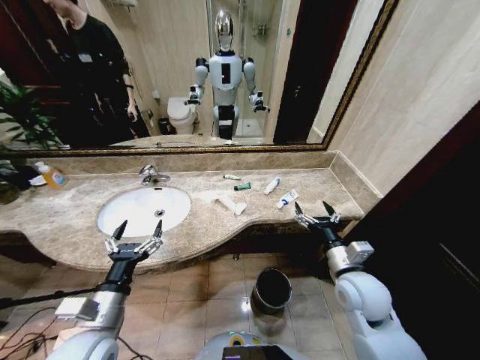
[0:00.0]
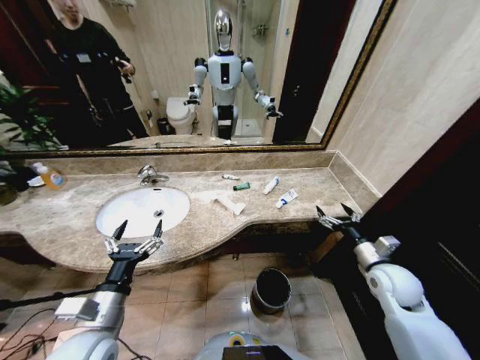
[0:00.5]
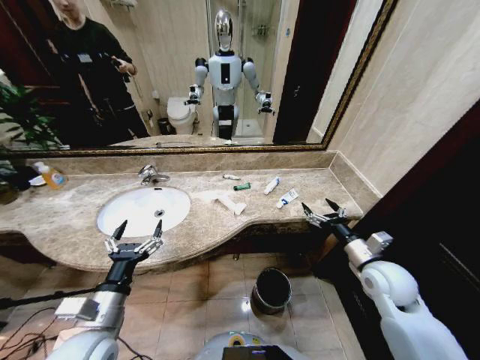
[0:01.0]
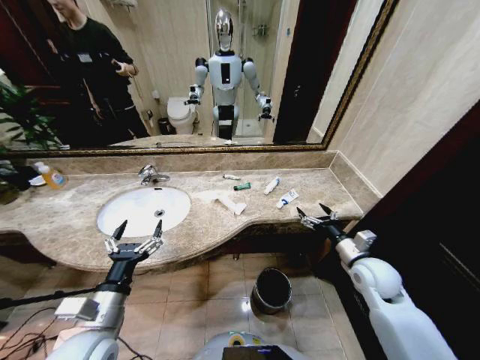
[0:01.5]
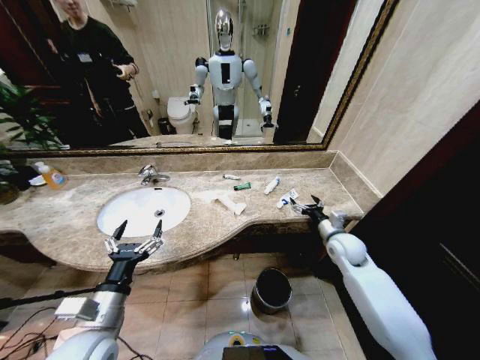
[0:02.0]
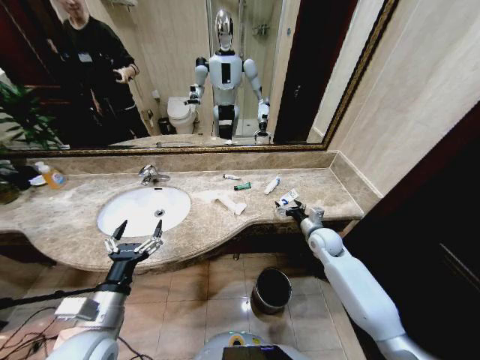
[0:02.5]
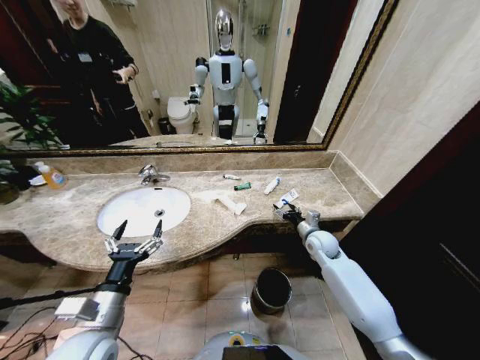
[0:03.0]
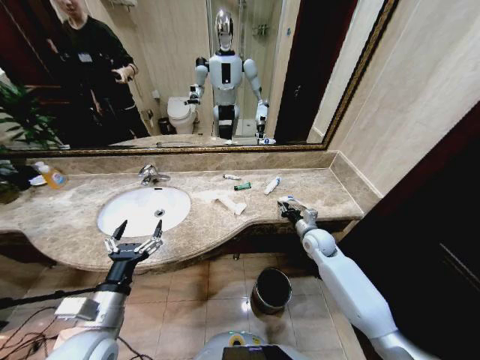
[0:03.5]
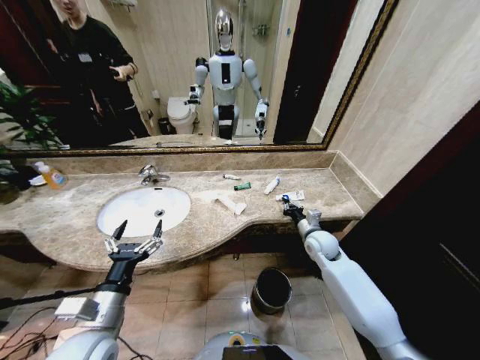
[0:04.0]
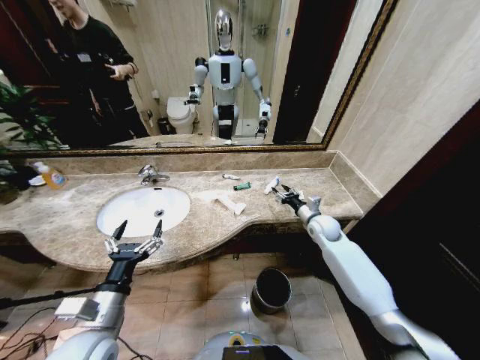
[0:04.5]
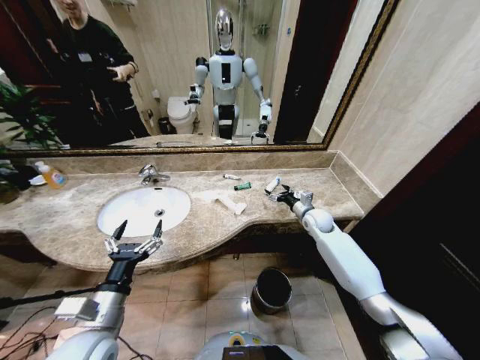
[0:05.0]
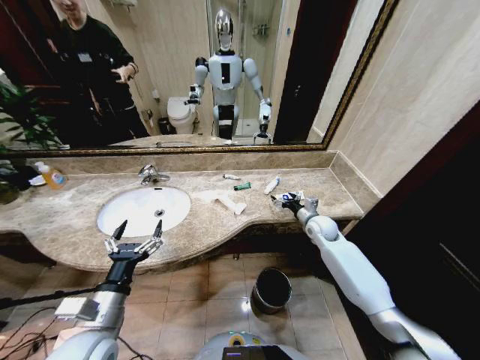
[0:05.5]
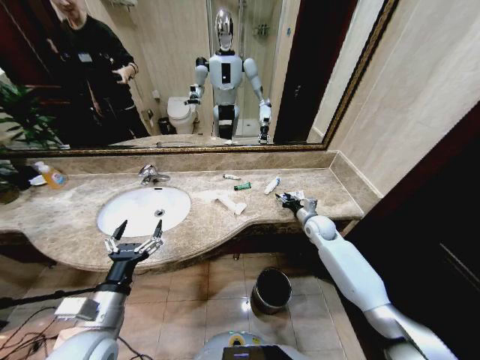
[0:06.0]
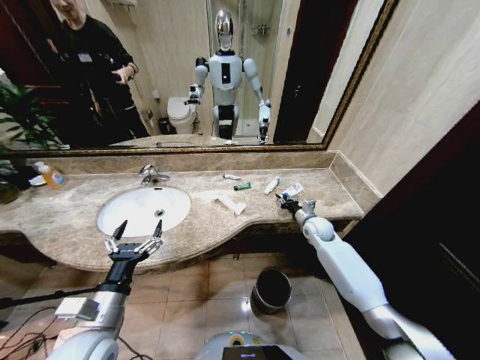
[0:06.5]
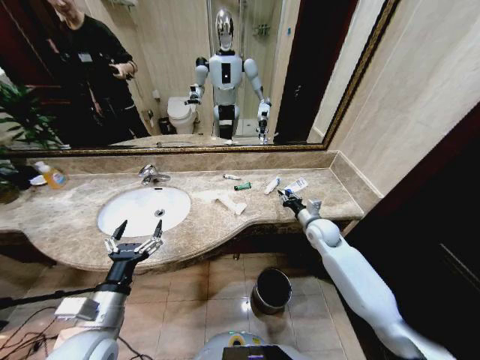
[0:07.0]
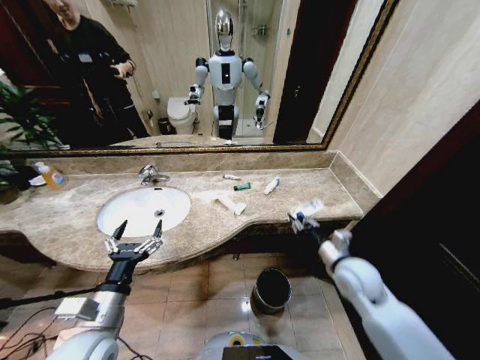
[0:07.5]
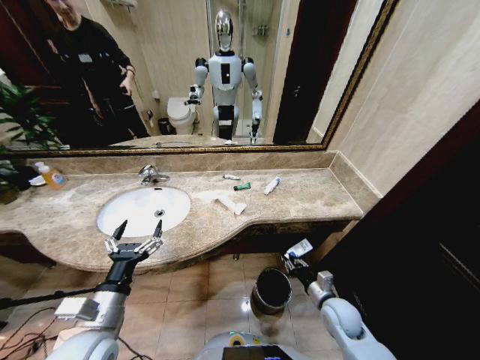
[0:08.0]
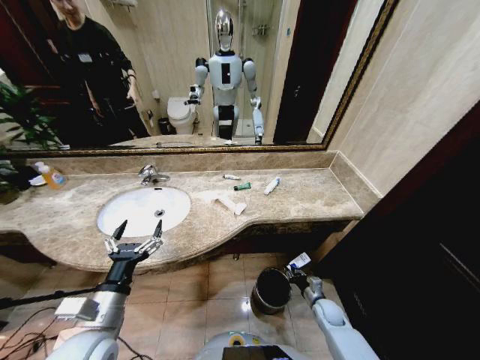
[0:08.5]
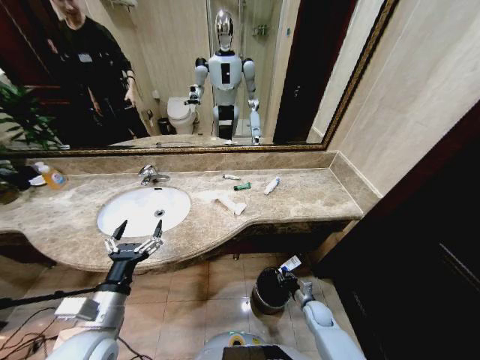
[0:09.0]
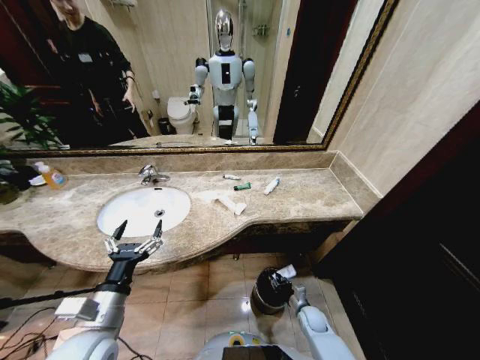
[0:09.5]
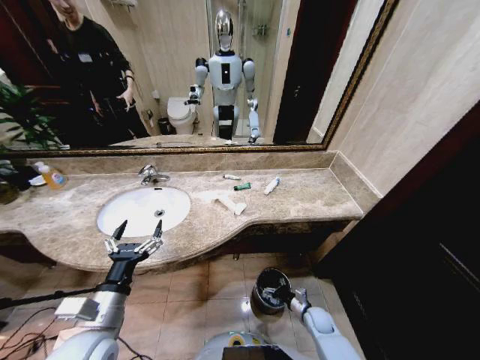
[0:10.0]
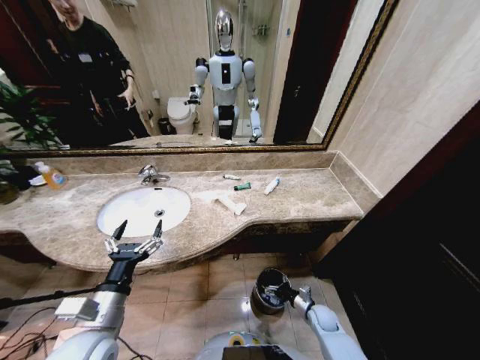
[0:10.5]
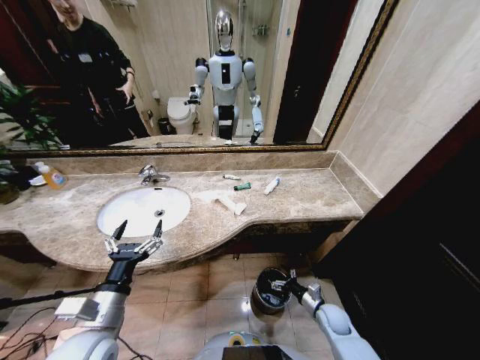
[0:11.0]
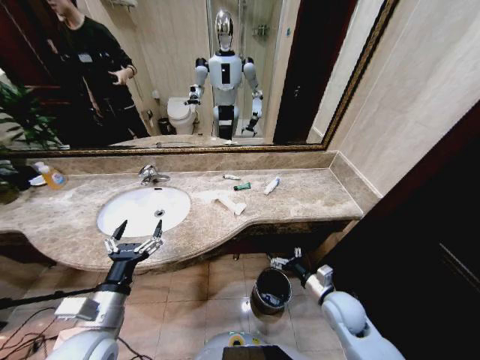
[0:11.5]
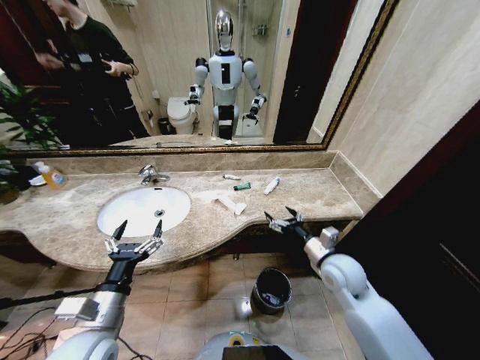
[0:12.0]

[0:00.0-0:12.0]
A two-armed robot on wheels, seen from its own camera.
Task of the whole recording: Pick up the trash from the sink and place it in the trash bin.
2.0 to 4.0 s: The right gripper moves to the left, some 5 cm, and closes.
4.0 to 6.0 s: The right gripper goes about 5 cm forward, and opens up.
6.0 to 8.0 s: The right gripper goes roughly 25 cm backward.
8.0 to 10.0 s: The right gripper shifts about 20 cm downward, and opens its fingers.
10.0 to 12.0 s: The right gripper moves upward, roughly 30 cm.

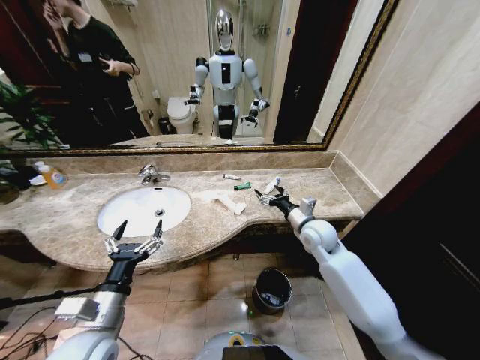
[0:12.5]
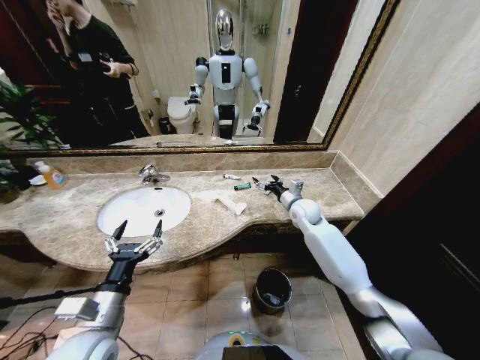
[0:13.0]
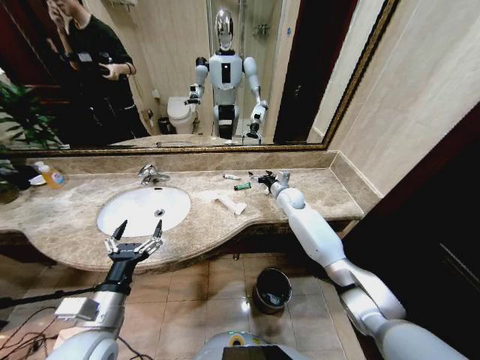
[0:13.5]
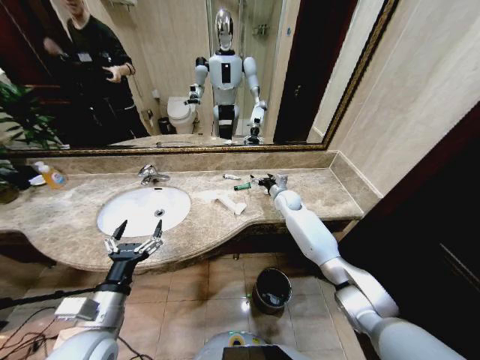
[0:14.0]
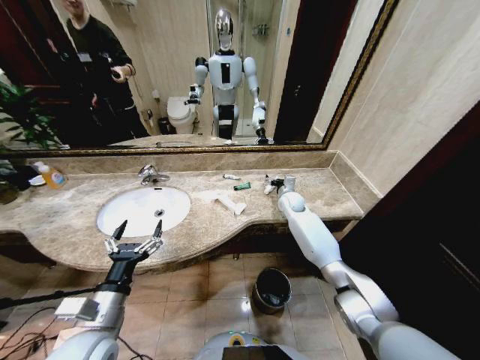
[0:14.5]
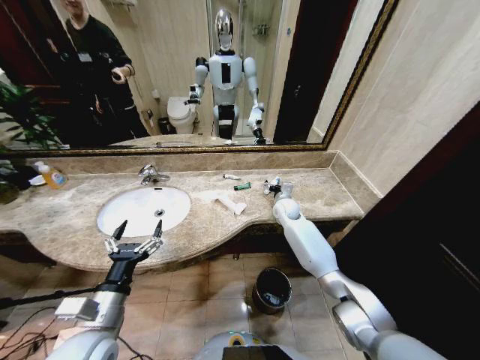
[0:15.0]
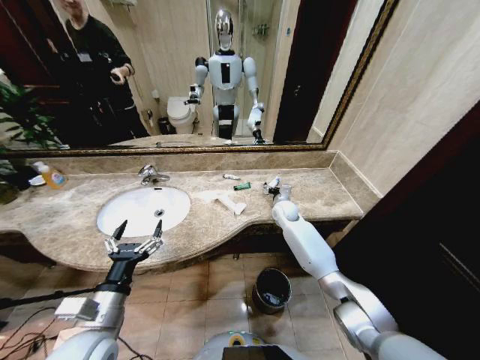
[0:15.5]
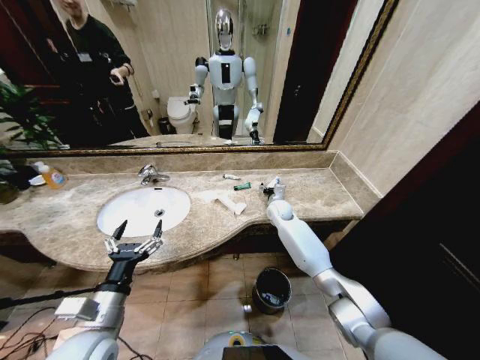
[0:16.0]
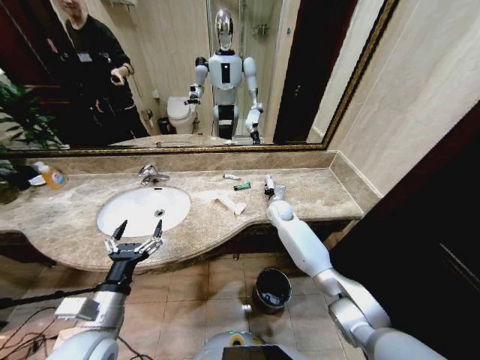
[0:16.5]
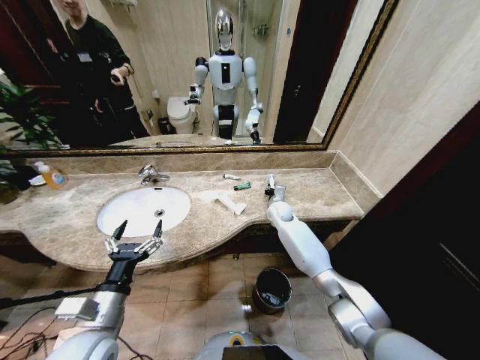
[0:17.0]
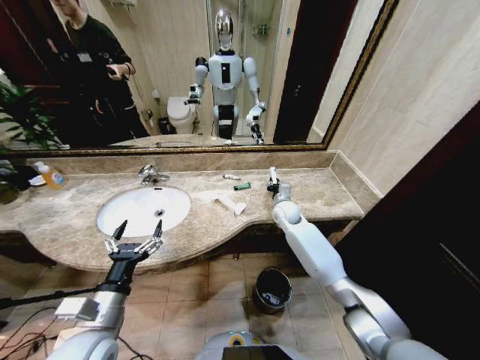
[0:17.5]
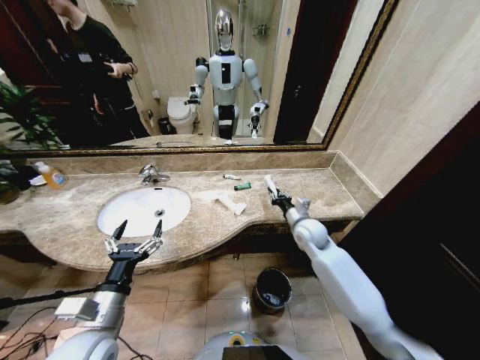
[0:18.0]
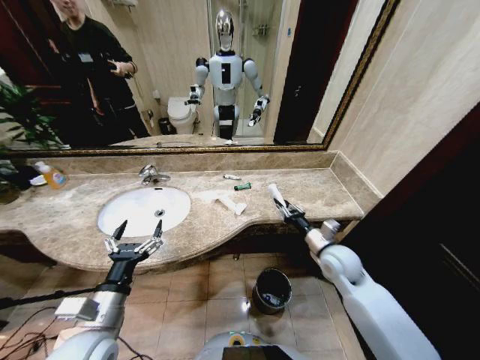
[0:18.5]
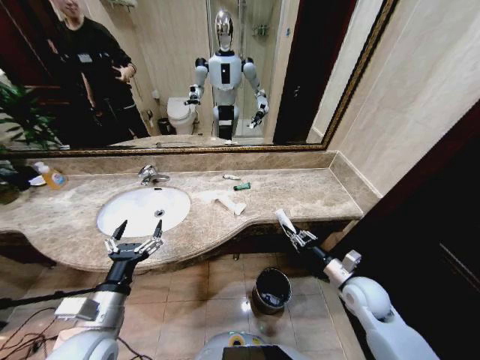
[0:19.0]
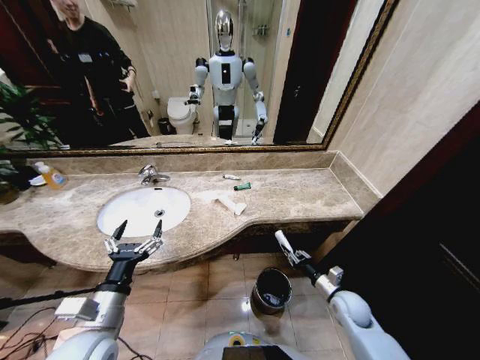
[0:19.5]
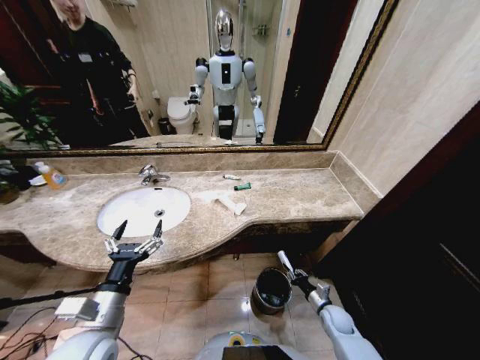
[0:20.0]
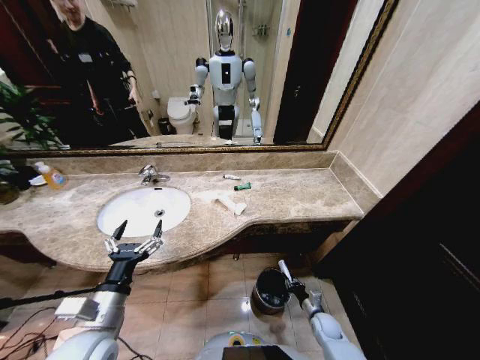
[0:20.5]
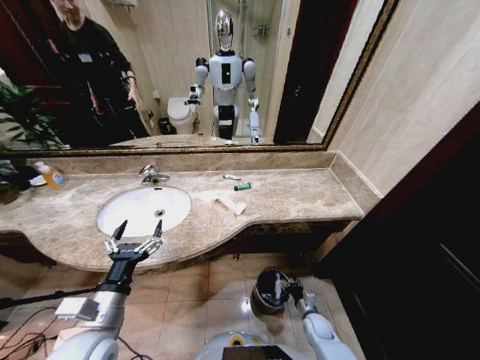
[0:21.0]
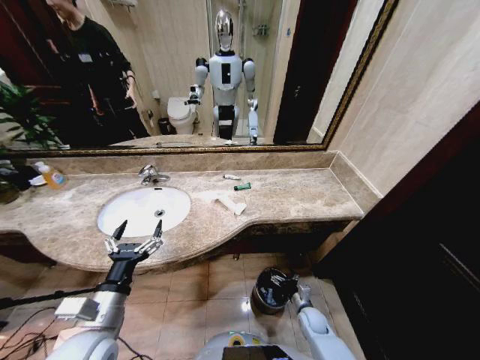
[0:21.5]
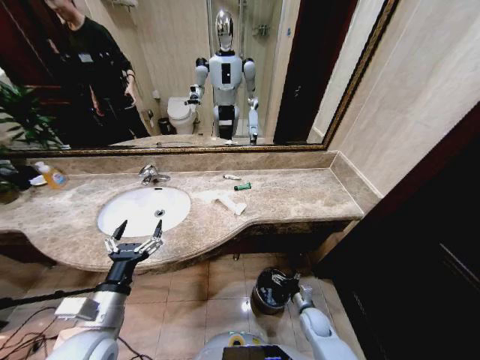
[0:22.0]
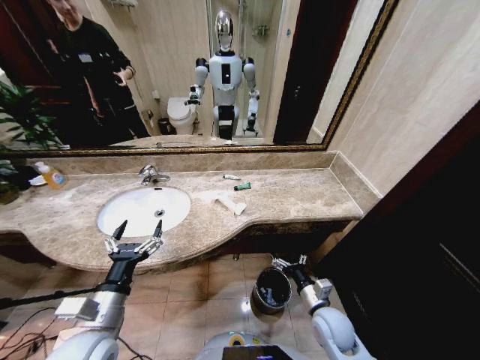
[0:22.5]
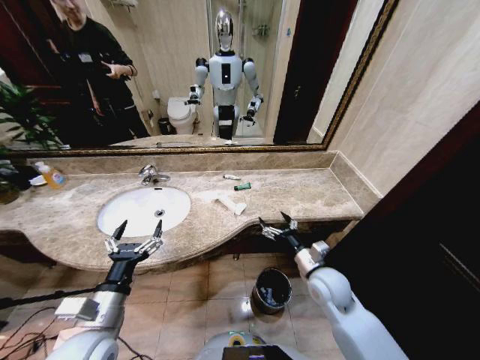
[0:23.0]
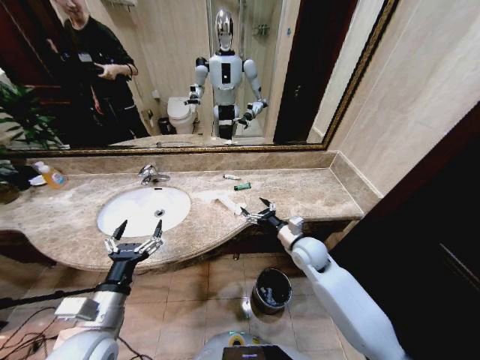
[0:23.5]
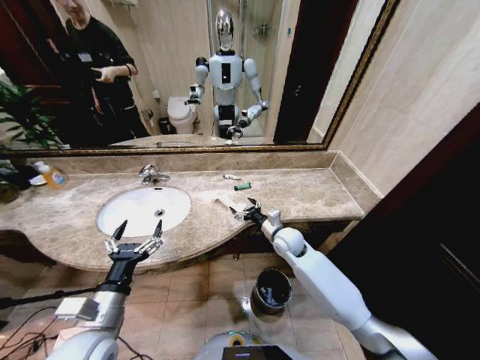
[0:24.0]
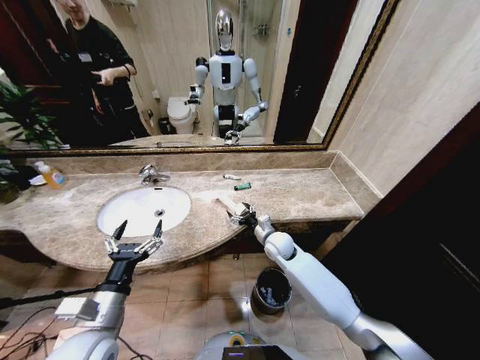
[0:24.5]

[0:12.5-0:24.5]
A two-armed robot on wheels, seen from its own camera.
Task of the whole recording: Pick up the trash from the sink and place it in the trash bin.
12.5 to 14.5 s: The right gripper moves forward, some 15 cm.
14.5 to 16.5 s: The right gripper changes place by about 5 cm, and closes up.
16.5 to 18.5 s: The right gripper moves backward and to the right, about 25 cm.
18.5 to 20.5 s: The right gripper shifts roughly 30 cm downward.
20.5 to 22.5 s: The right gripper is displaced upward by approximately 20 cm, and opens.
22.5 to 24.5 s: The right gripper moves forward and to the left, roughly 25 cm.

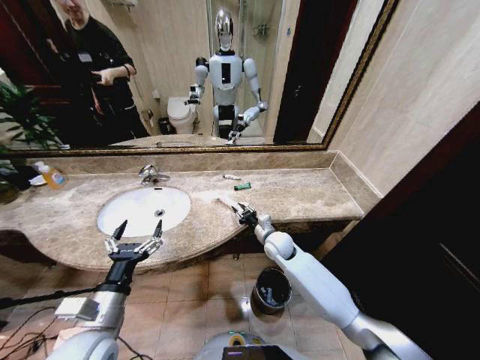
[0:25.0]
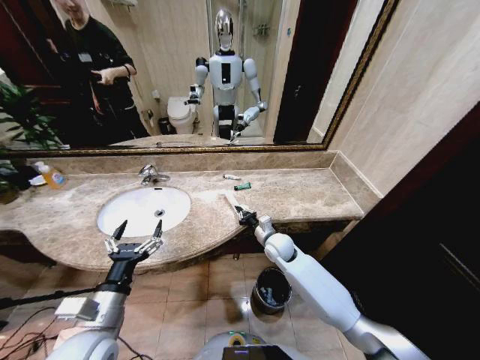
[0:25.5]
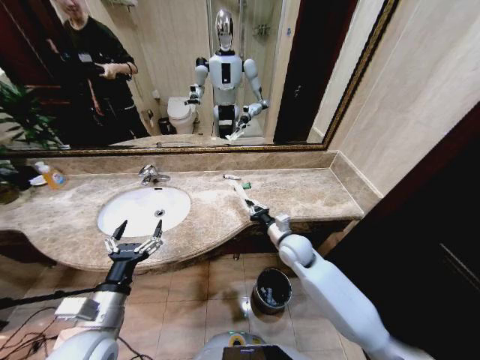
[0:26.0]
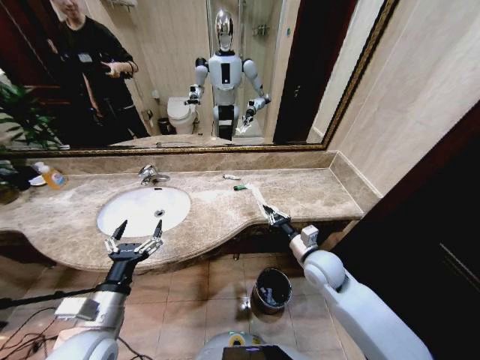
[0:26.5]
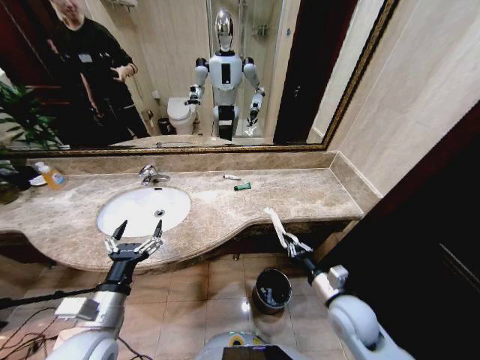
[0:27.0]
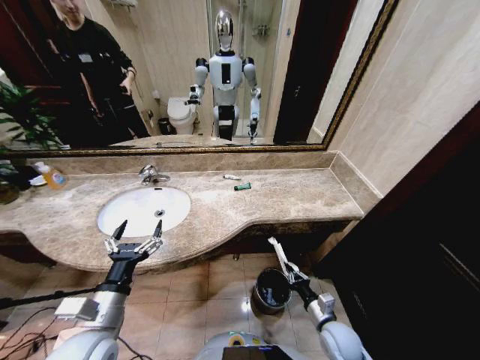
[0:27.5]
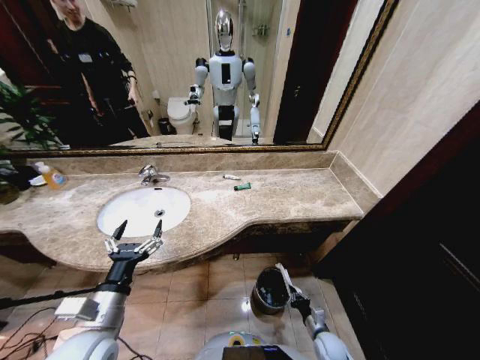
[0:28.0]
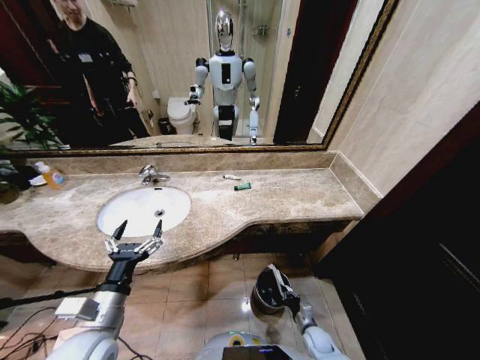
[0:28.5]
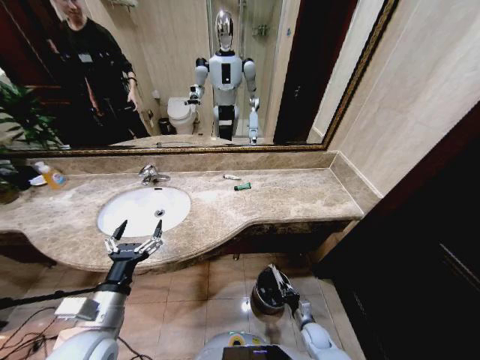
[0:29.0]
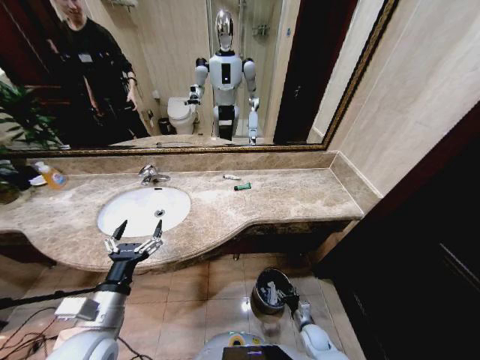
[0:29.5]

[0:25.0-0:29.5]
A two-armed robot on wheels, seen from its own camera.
Task of the whole recording: Pick up the trash from the sink and place it in the trash bin.
25.0 to 27.0 s: The right gripper heads backward and to the right, covering about 25 cm.
27.0 to 29.5 s: The right gripper is displaced downward by approximately 30 cm, and opens its fingers.
